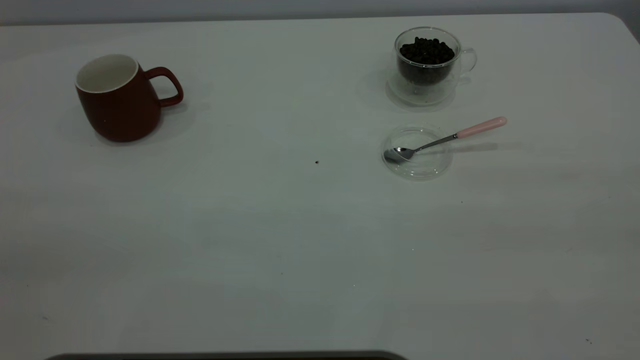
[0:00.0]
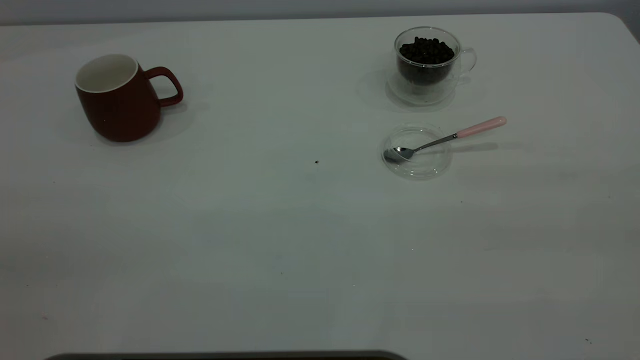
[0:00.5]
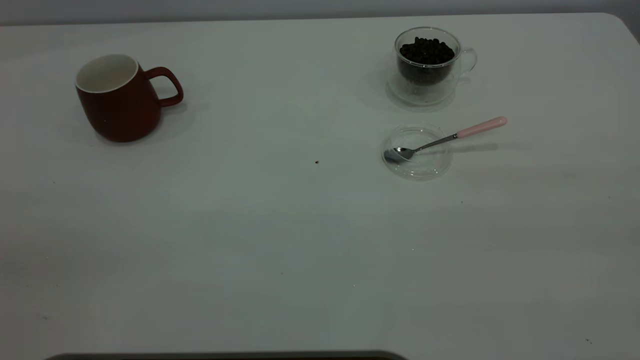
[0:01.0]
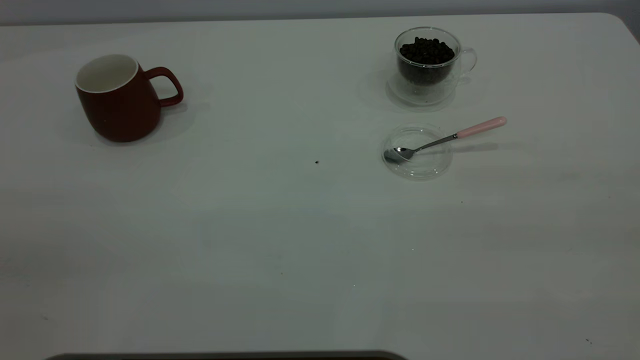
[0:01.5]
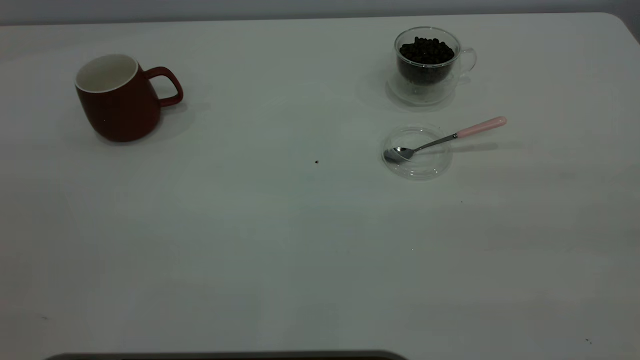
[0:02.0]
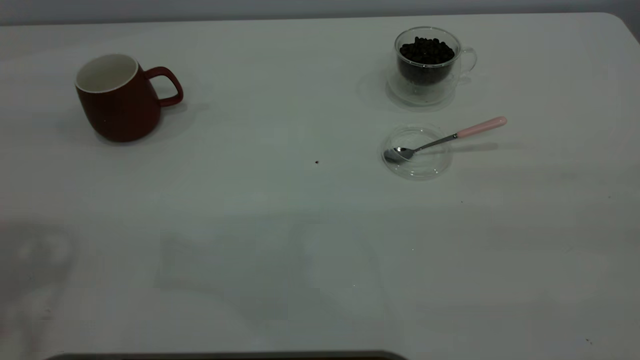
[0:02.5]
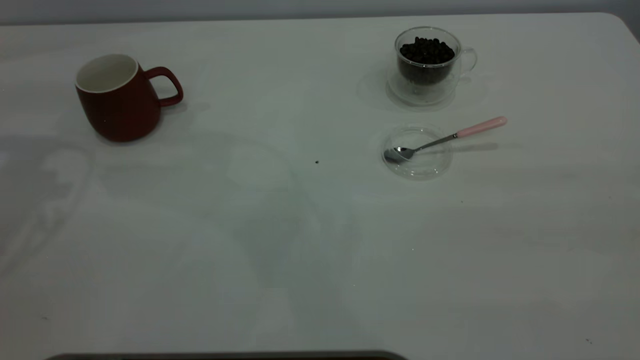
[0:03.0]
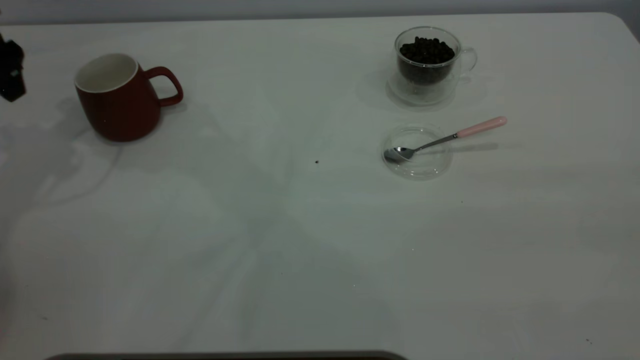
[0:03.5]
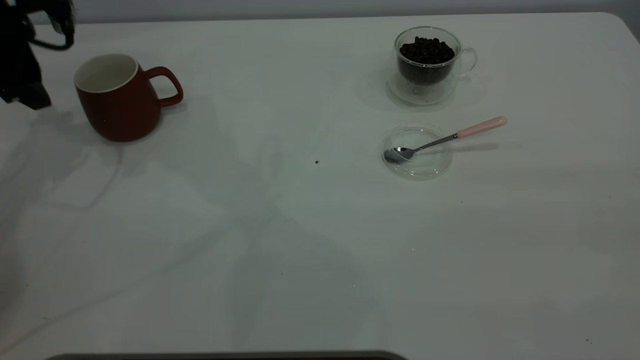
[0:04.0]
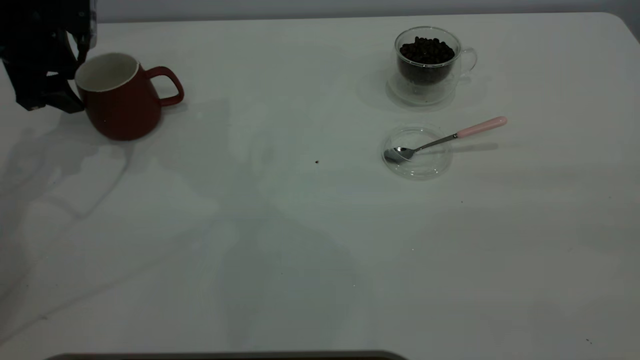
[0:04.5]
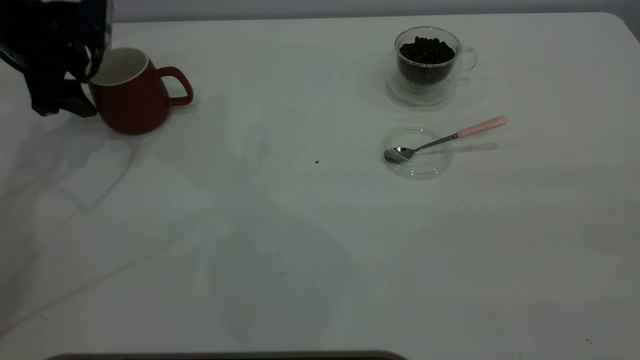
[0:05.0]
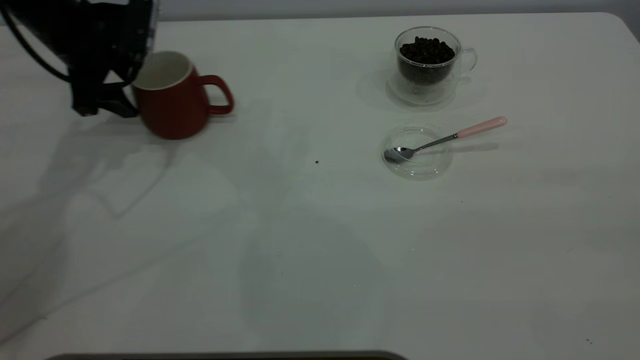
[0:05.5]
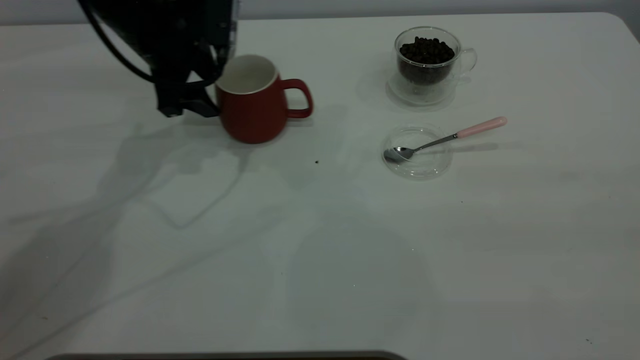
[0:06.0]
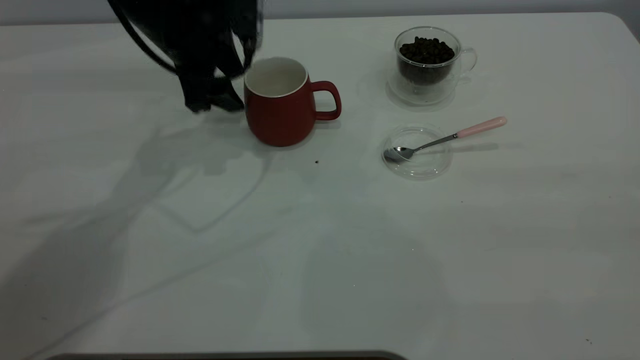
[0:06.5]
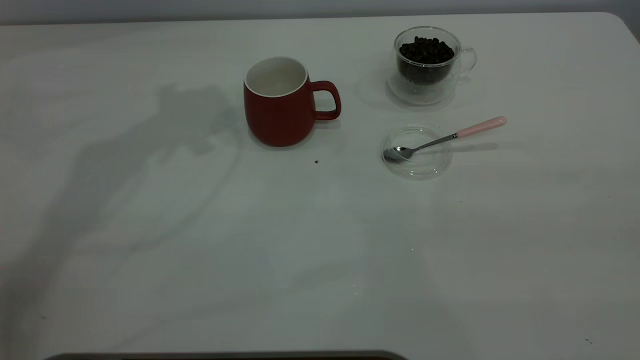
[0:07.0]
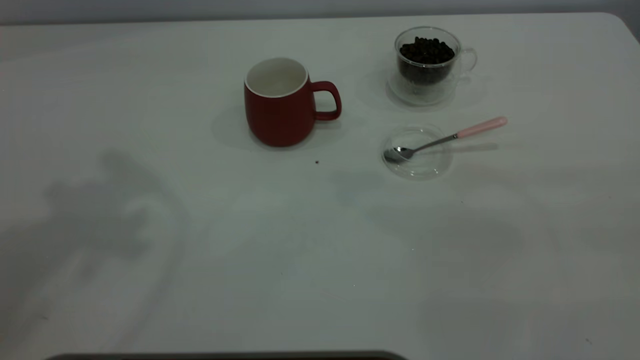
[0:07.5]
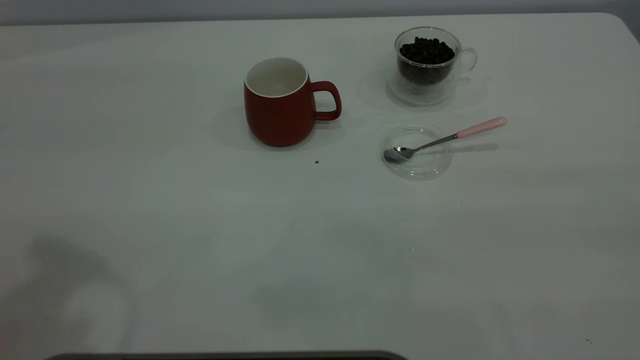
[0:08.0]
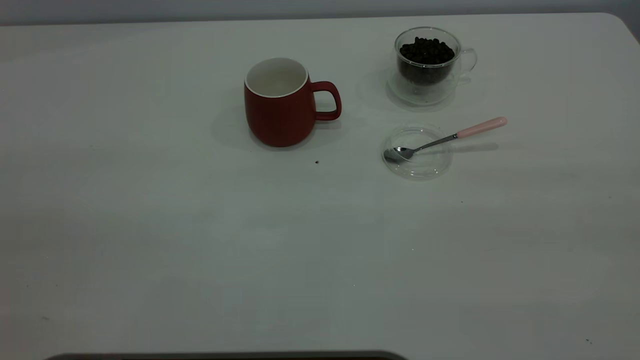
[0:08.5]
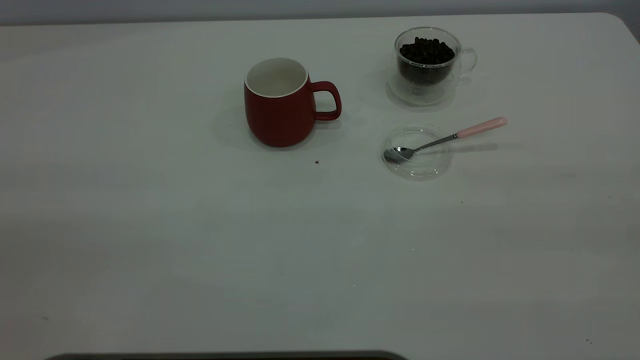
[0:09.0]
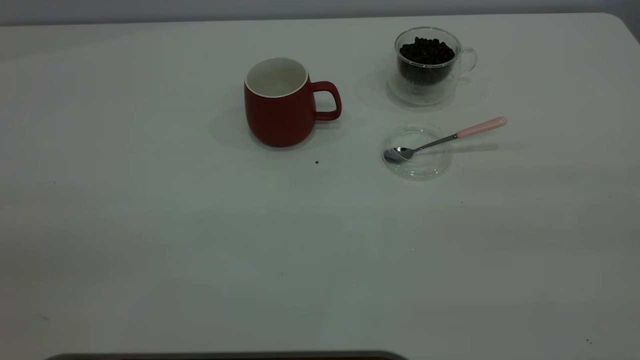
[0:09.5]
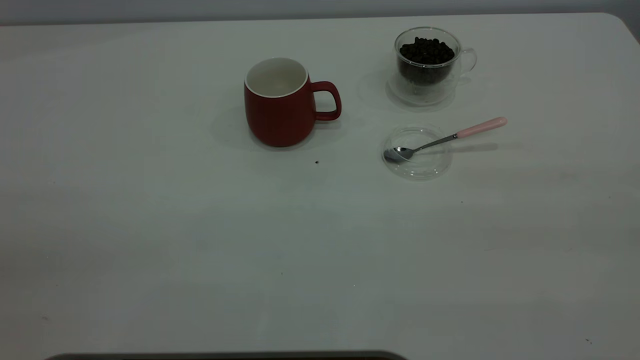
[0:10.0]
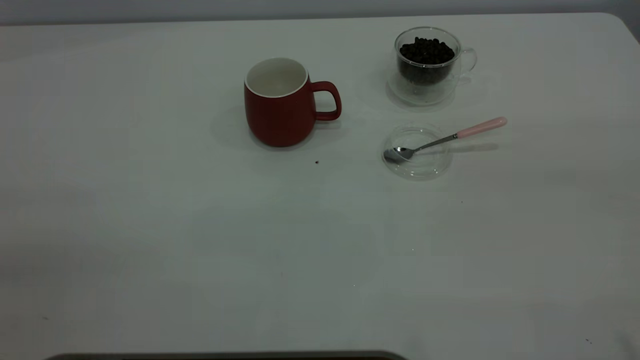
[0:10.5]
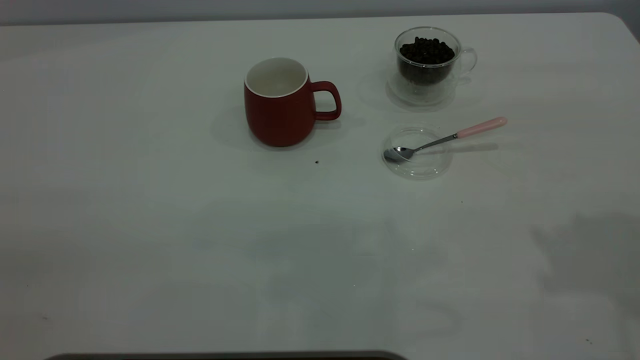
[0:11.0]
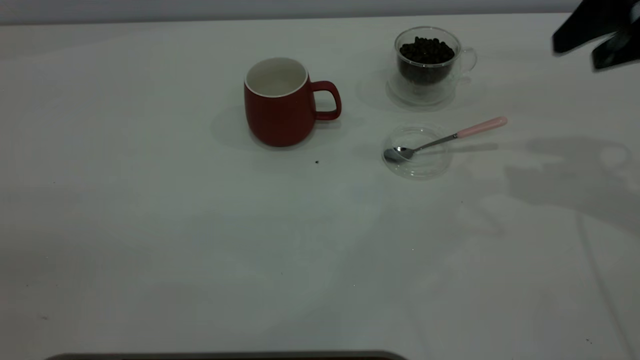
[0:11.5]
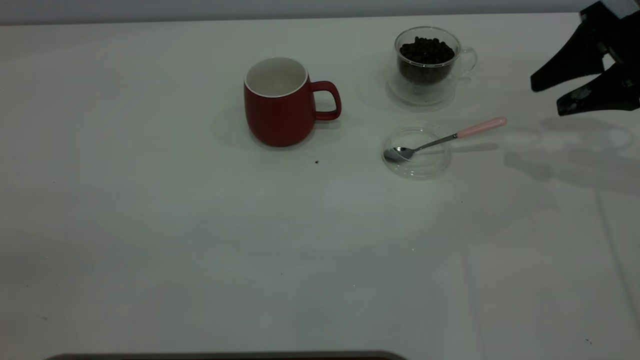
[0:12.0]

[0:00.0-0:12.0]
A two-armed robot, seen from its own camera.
Task of the whole recording: the left gripper place the red cup in the center of the table, the right gripper take the pink spoon from the cup lid and scoop out the coffee beans from the coffee cup and put them into the red cup, the right gripper put the spoon back into the cup lid.
Step, 0:00.0 to 0:06.5: Move the cup to the center of view.
0:02.0 to 0:04.0: The left gripper goes roughly 40 cm forward and downward.
0:04.0 to 0:06.0: The left gripper goes roughly 15 cm to the right.
0:06.0 to 0:08.0: The left gripper shifts roughly 40 cm backward and upward.
0:10.0 to 0:12.0: The right gripper moves forward and downward, roughly 40 cm.

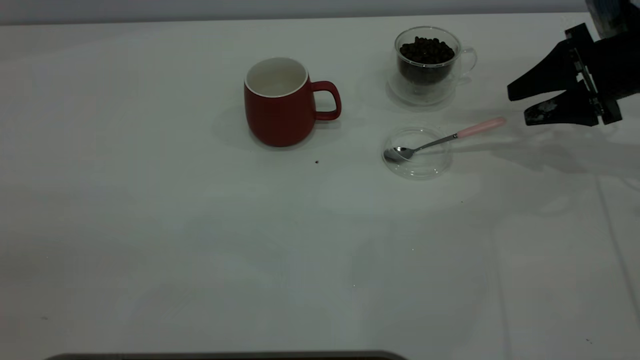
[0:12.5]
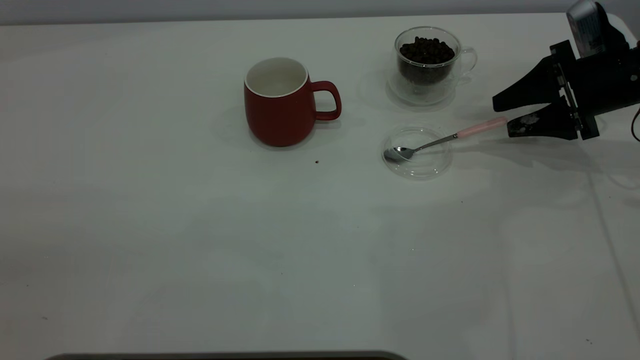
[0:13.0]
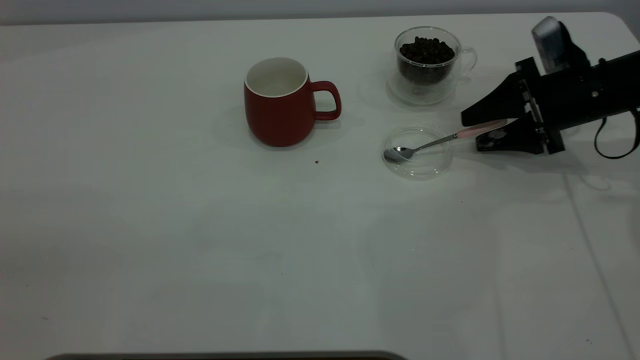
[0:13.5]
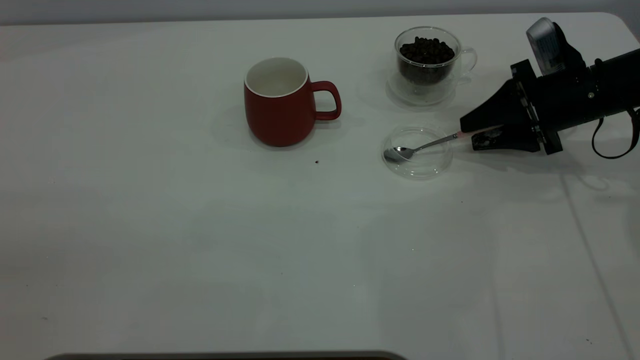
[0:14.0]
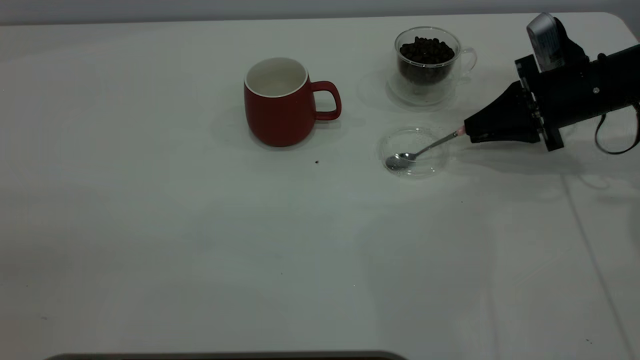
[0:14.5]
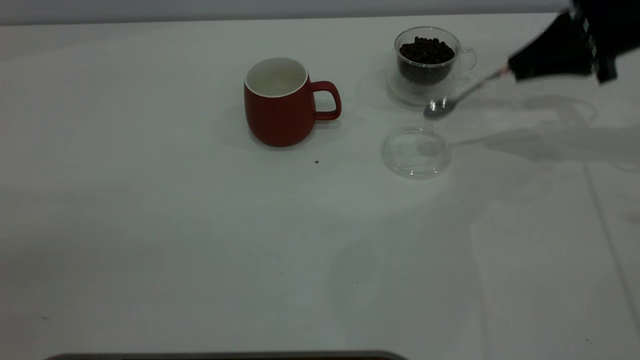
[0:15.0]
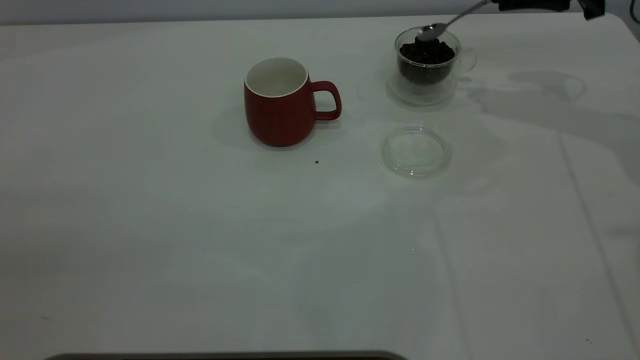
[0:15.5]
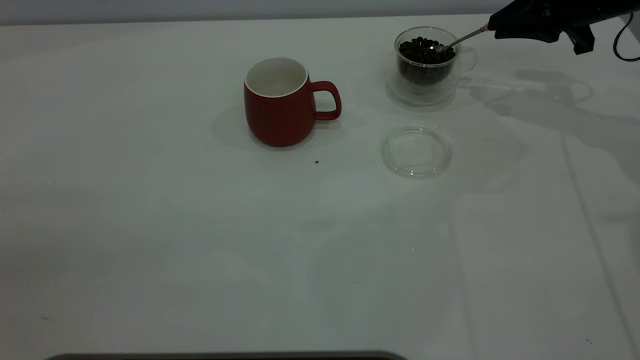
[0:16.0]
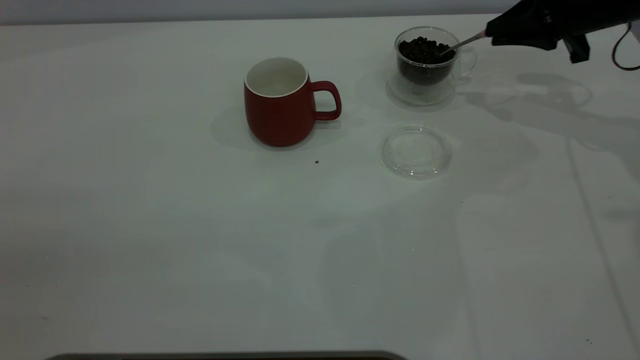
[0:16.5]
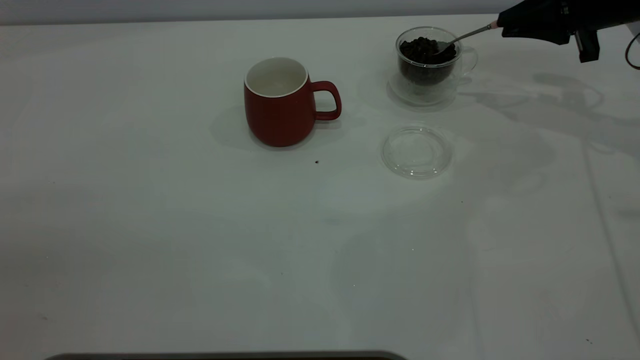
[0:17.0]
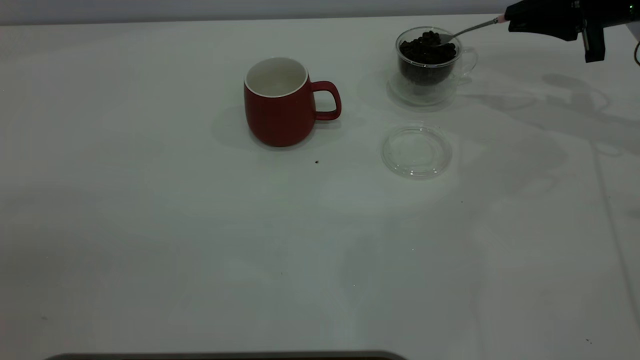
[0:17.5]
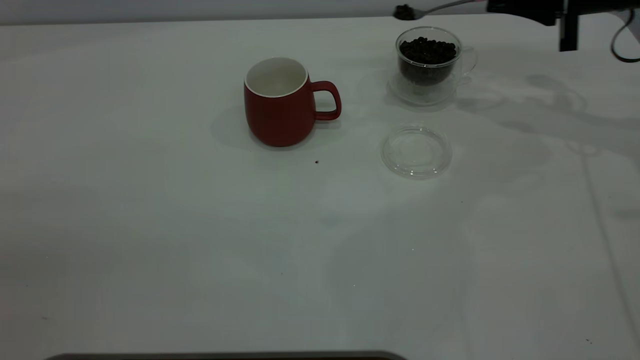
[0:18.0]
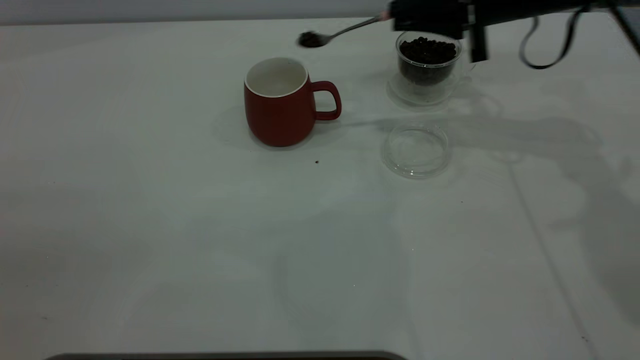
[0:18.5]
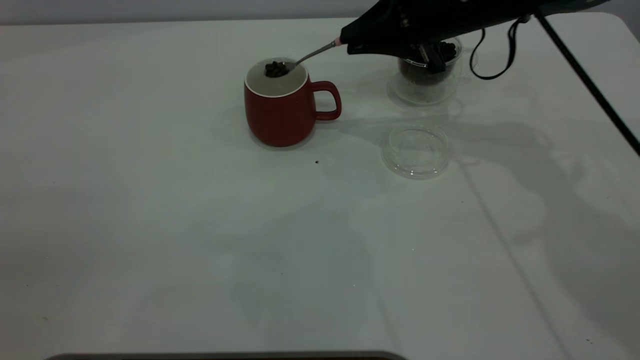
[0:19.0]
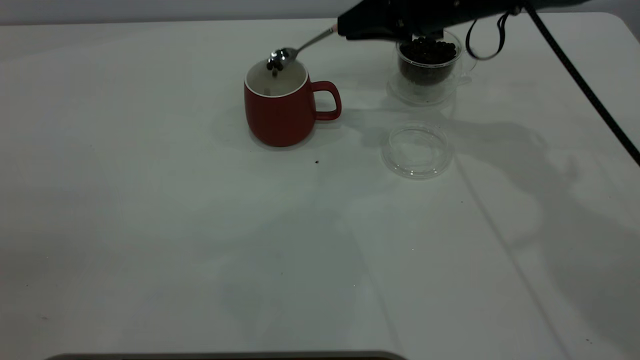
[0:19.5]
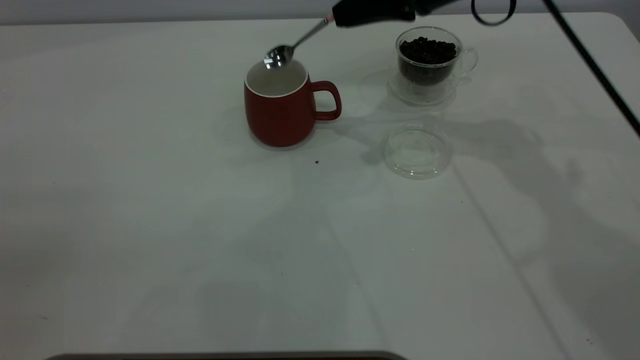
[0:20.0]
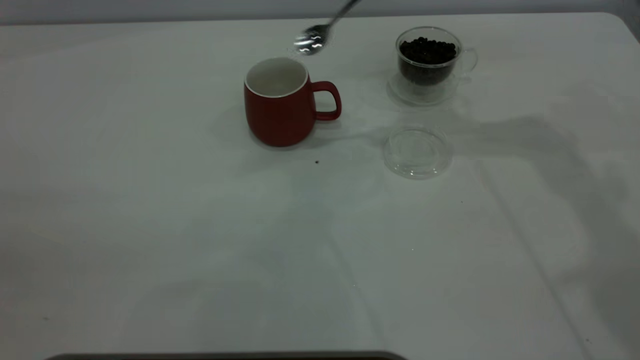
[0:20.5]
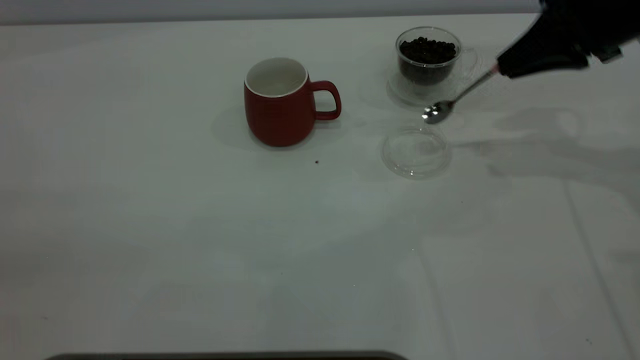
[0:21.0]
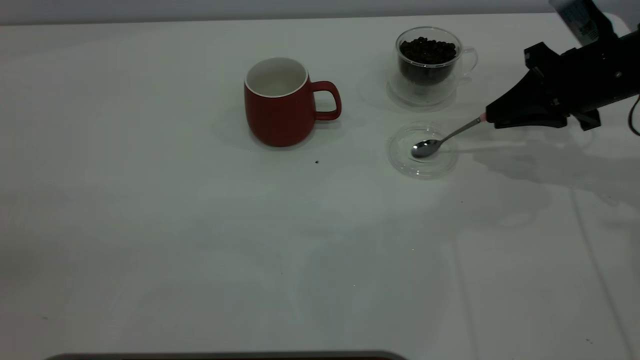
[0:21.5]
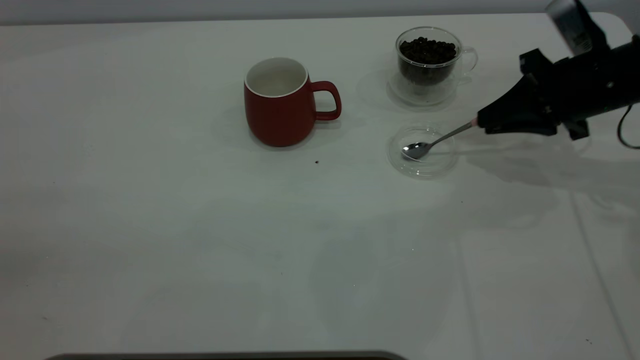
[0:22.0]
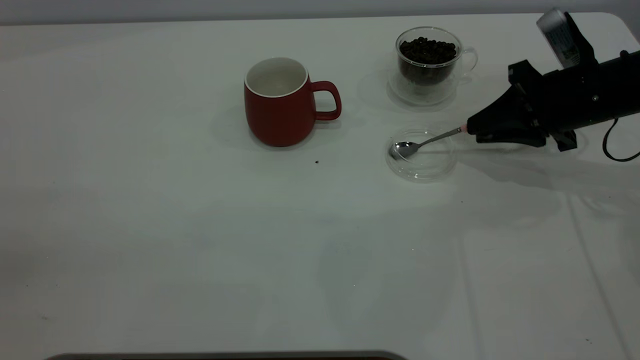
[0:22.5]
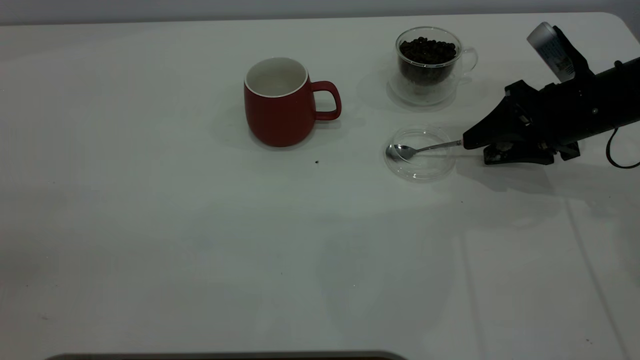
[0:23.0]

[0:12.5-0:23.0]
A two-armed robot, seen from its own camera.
Task of the whole recording: the left gripper place the red cup in the center of the table, the right gripper take the pink spoon from the cup lid and scoop out the coffee beans from the coffee cup and put them into the red cup, the right gripper put the spoon back into the cup lid.
Step, 0:12.5 to 0:14.5: Pick up the spoon.
Step, 0:15.0 to 0:20.0: Scoop a spoonful of beans into the cup.
0:12.5 to 0:14.5: The right gripper moves about 5 cm, and closes its fingers.
0:14.5 to 0:16.5: The right gripper travels upward and forward by approximately 10 cm.
0:16.5 to 0:19.0: The right gripper goes about 15 cm to the left.
0:19.0 to 0:21.0: The right gripper shifts approximately 15 cm to the right.
0:21.0 to 0:23.0: The right gripper goes about 10 cm downward, and opens.
